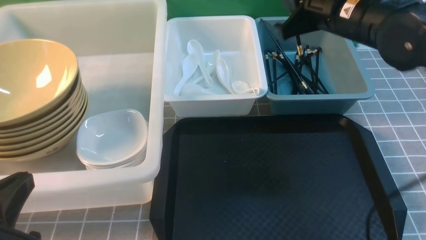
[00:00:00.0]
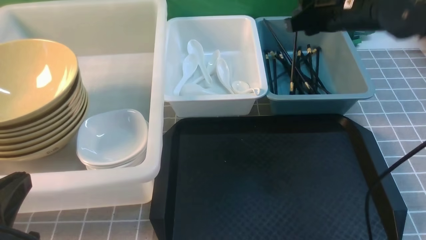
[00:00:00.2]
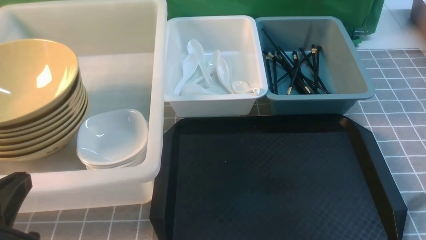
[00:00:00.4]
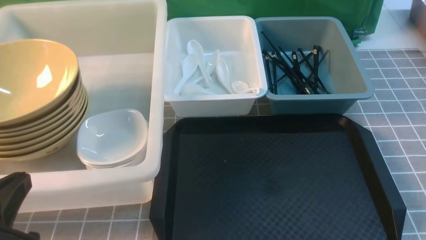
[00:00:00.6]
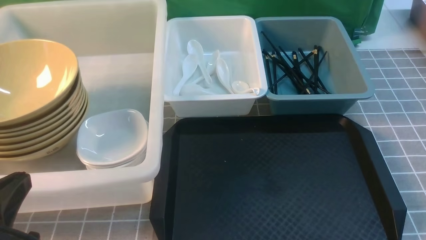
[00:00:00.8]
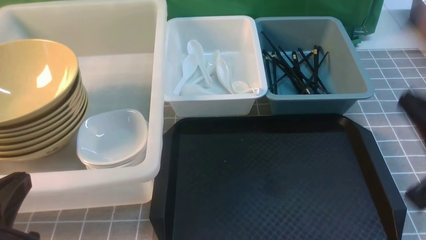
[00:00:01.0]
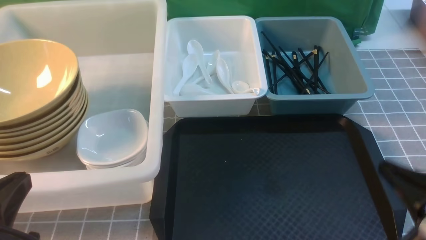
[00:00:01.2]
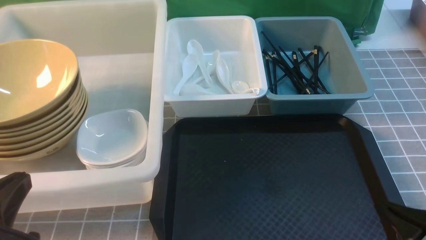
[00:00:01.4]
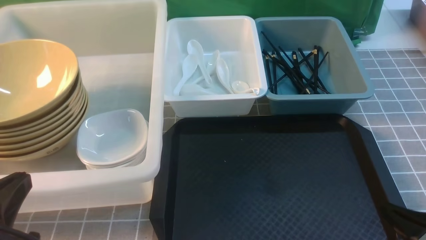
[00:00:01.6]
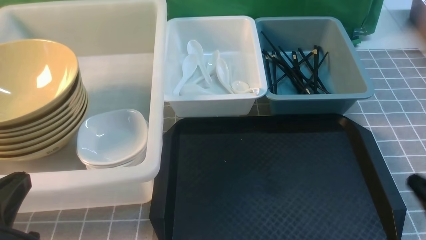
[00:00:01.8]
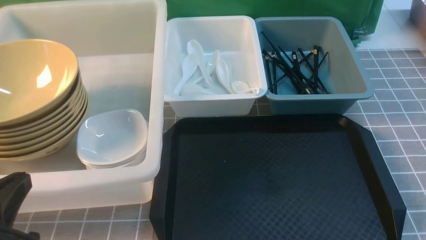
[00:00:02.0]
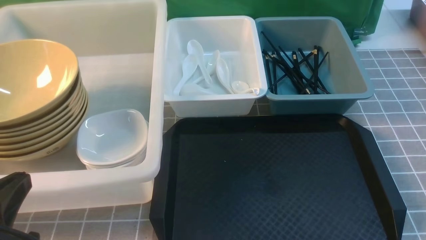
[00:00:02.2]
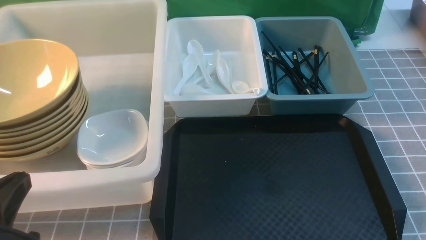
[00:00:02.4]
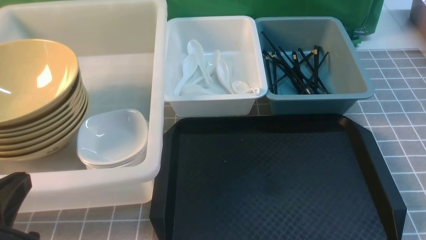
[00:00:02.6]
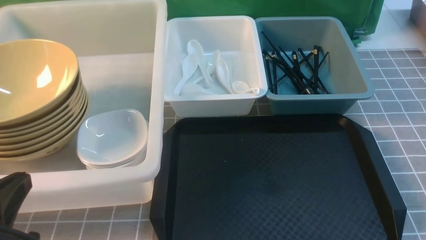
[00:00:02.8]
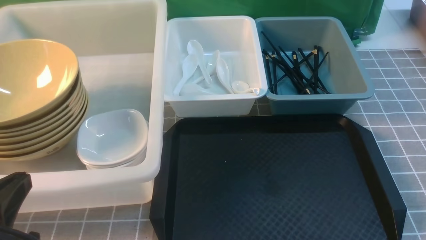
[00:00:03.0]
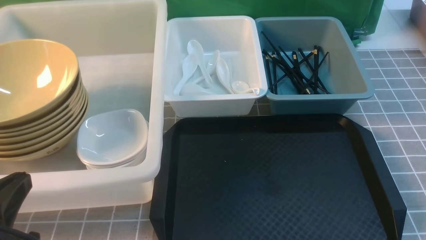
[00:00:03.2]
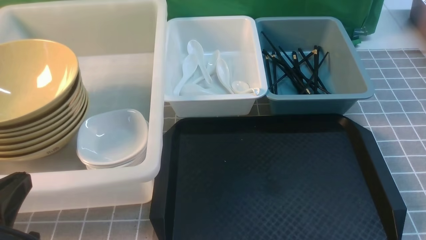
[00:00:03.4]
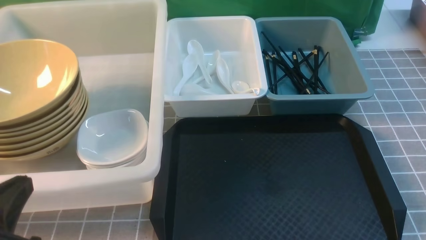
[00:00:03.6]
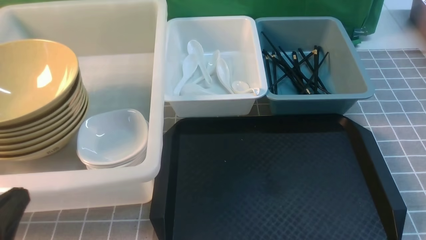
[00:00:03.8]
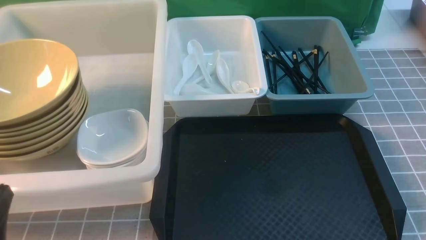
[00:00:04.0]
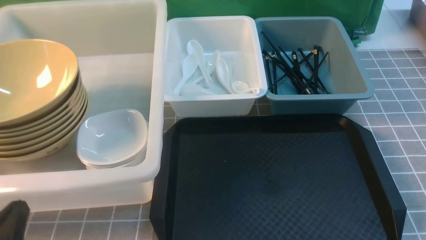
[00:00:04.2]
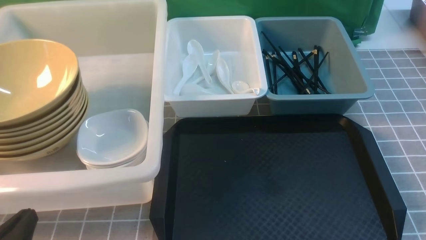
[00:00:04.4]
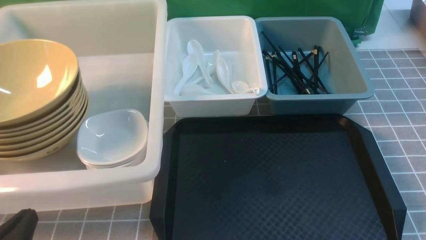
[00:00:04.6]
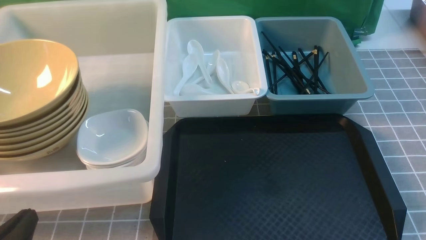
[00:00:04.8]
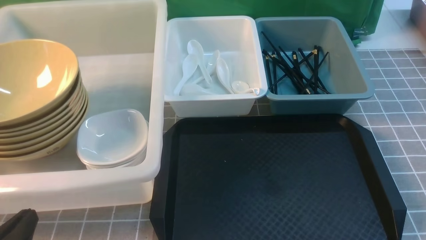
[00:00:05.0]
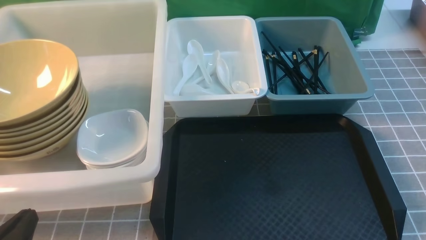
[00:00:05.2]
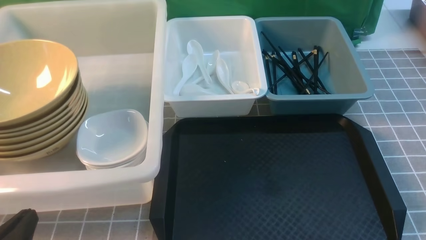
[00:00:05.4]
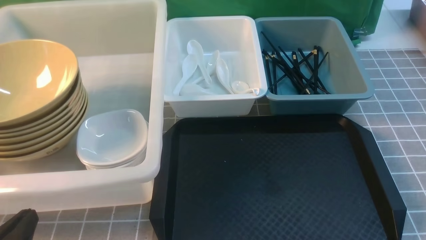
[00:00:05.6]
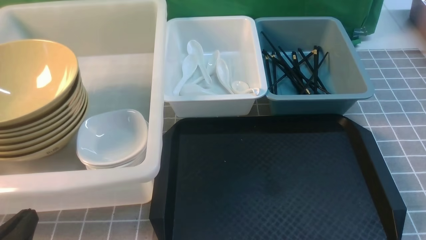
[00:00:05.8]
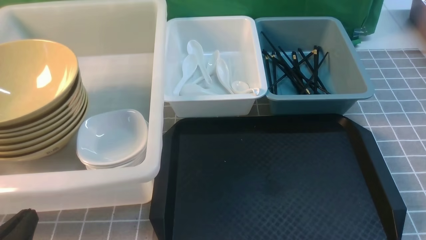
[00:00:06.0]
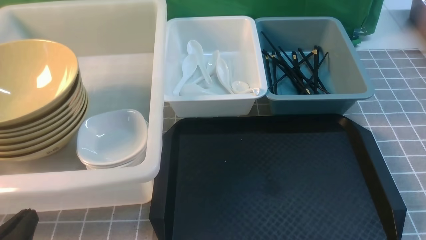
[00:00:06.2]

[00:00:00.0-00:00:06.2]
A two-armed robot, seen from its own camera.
Task of the whole recording: on grey table put chopsticks spoon bowls plates into blue grey white boxes.
Step, 00:00:00.0 to 00:00:00.4: use the right arm to put a chopstick into the small storage box on the right.
00:00:00.0 to 00:00:01.6: The right gripper heads backward, downward and to the right, covering some 30 cm.
00:00:01.6 to 00:00:03.2: The right gripper changes place by about 5 cm.
00:00:03.2 to 00:00:04.6: The left gripper travels downward by approximately 10 cm.
00:00:04.6 to 00:00:06.2: Neither gripper changes place.
